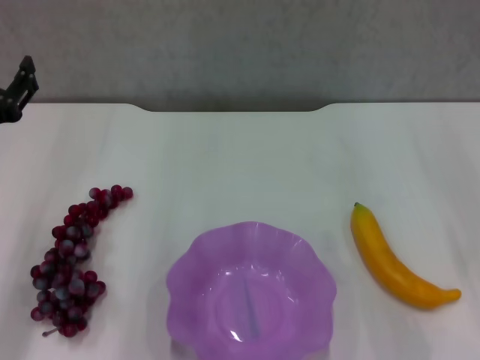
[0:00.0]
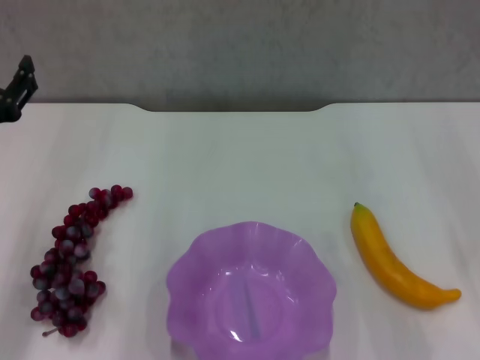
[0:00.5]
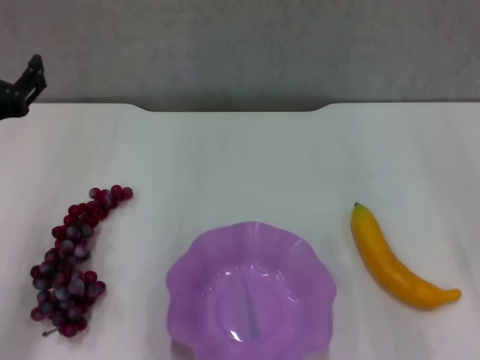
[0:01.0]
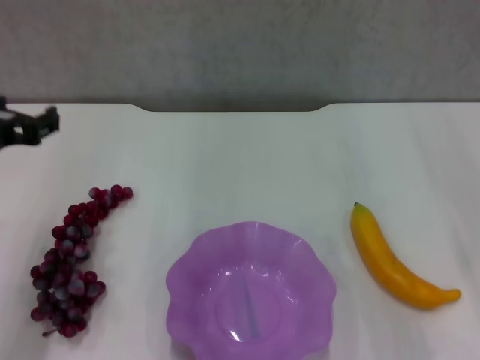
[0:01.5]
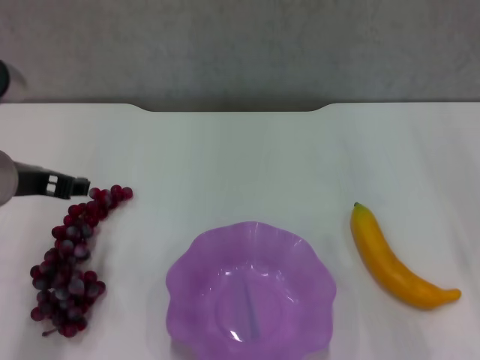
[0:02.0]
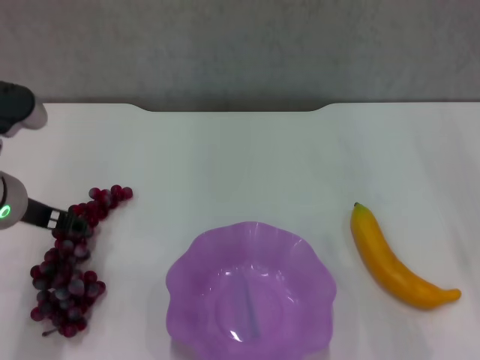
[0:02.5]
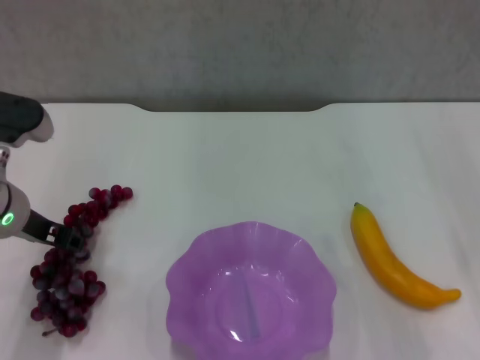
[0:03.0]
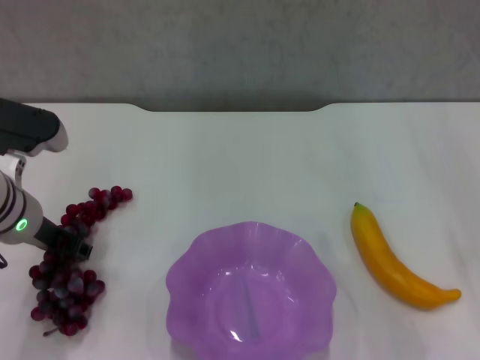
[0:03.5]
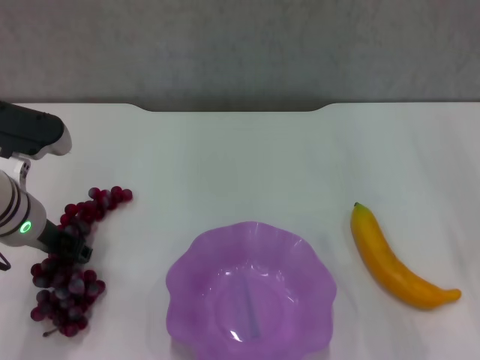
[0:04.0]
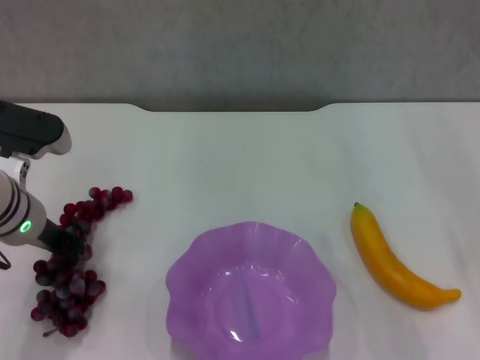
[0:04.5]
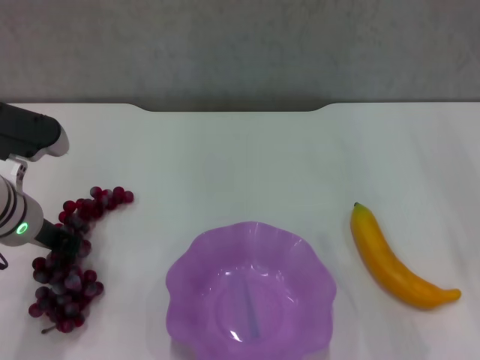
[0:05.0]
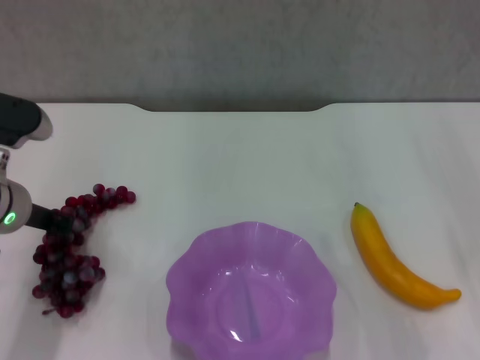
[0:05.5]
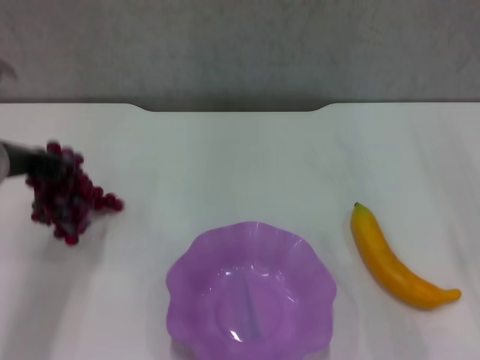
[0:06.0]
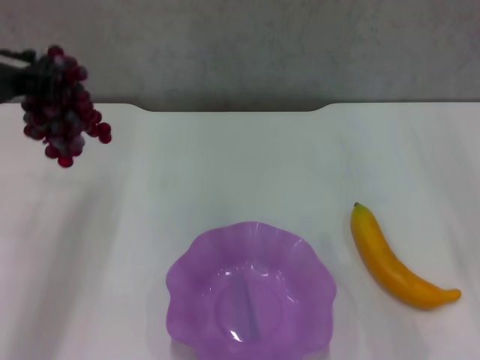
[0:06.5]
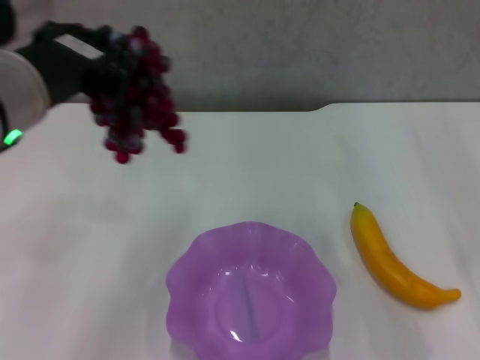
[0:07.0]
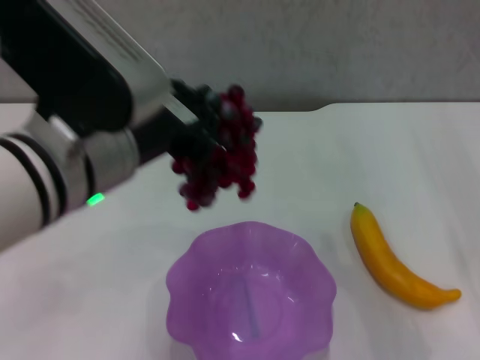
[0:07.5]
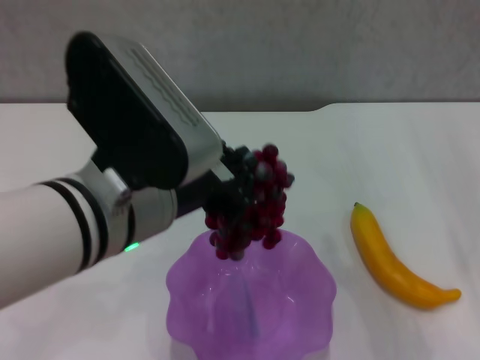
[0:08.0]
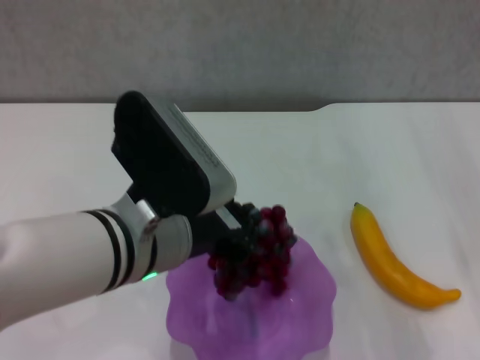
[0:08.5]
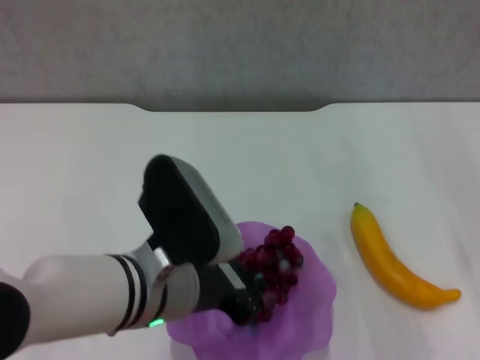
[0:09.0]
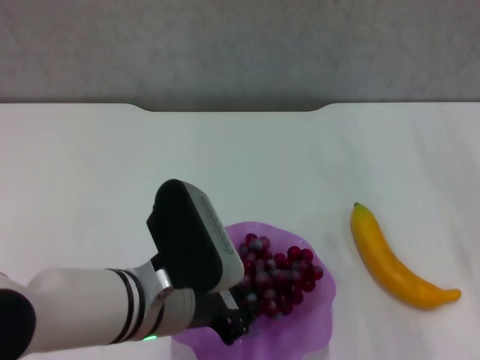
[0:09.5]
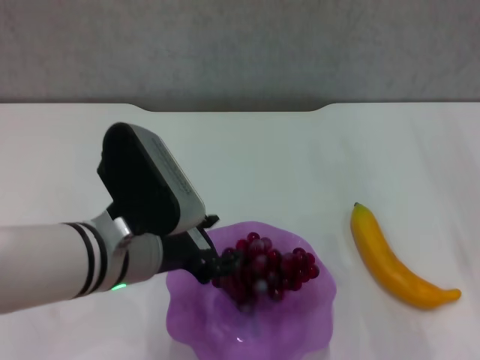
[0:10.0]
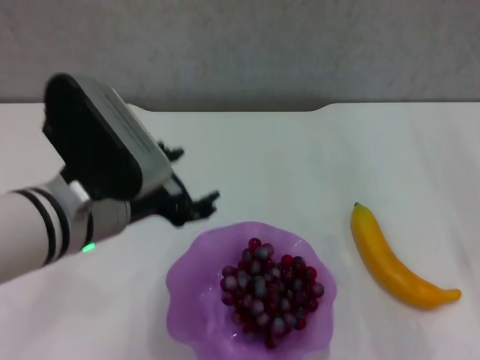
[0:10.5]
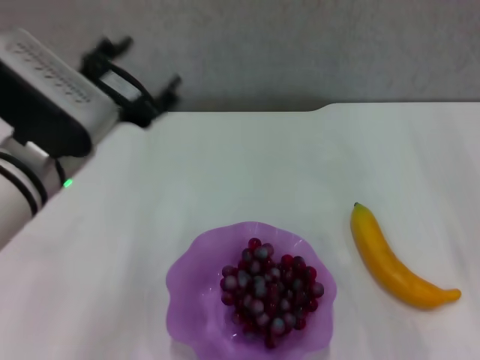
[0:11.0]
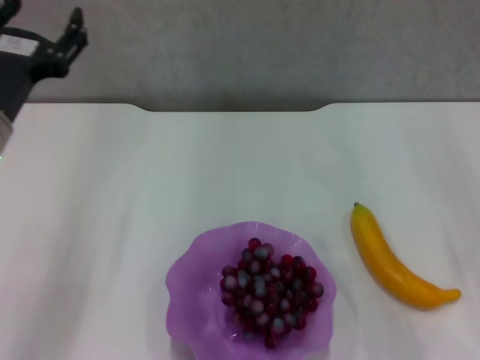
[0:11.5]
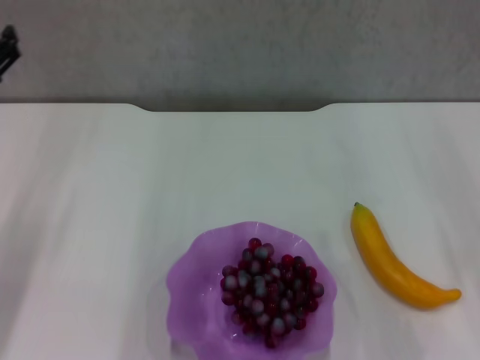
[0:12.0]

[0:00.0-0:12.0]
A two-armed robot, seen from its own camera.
Step, 0:01.0 to 0:05.0: Grasp the grape with left gripper.
Step, 0:05.5 to 0:10.0: Place the grape in the purple plate with left gripper.
0:00.0 to 0:02.0: The left gripper shifts about 5 cm to the right.
0:02.0 to 0:04.0: The left gripper shifts some 5 cm downward.
0:04.0 to 0:06.0: The left gripper goes approximately 5 cm upward, and closes up.
0:06.0 to 0:08.0: The left gripper goes approximately 15 cm to the right and backward.
0:08.0 to 0:10.0: The left gripper heads downward, covering about 10 cm, and opens.
0:10.0 to 0:12.0: The left gripper is displaced to the left by roughly 20 cm, and opens.

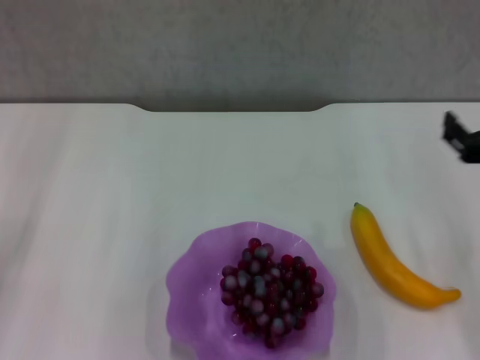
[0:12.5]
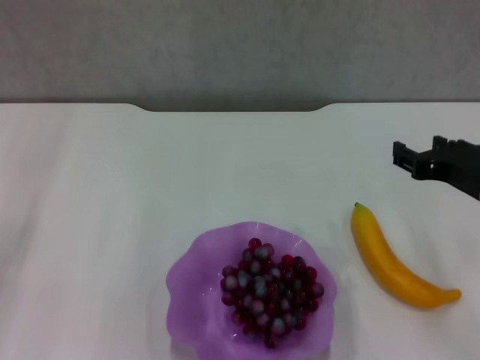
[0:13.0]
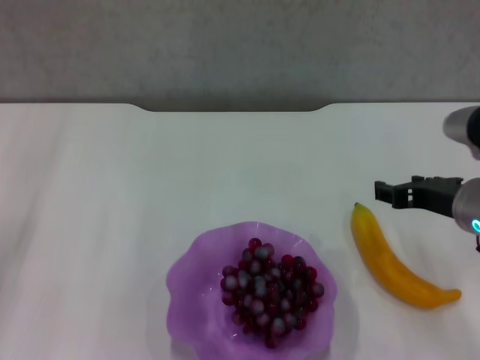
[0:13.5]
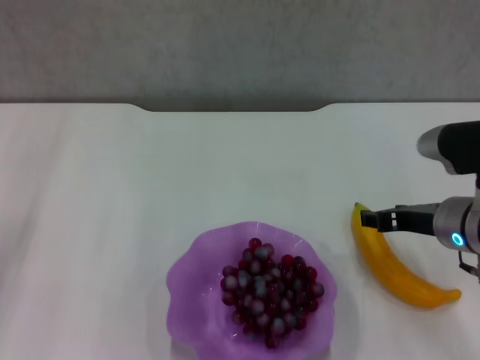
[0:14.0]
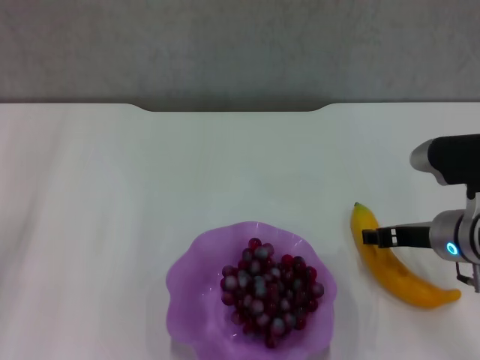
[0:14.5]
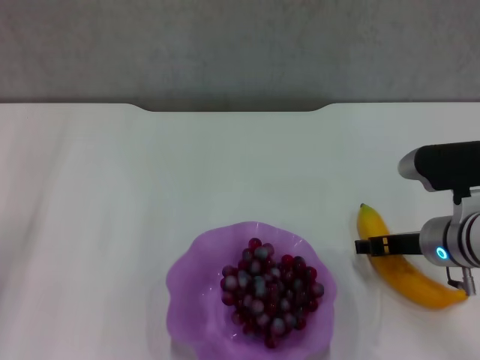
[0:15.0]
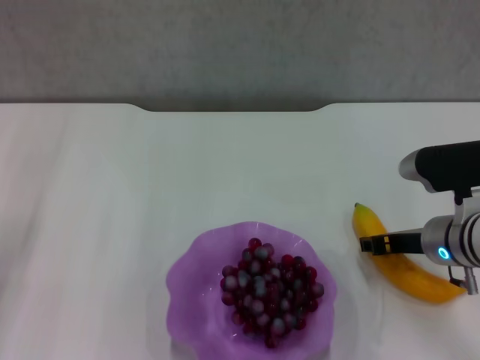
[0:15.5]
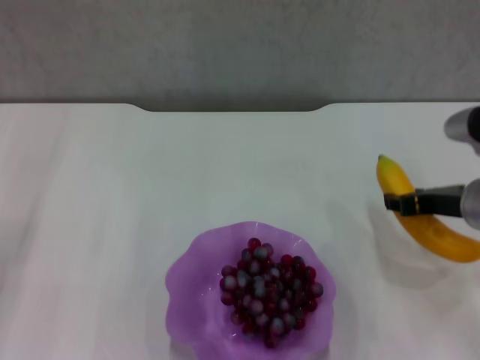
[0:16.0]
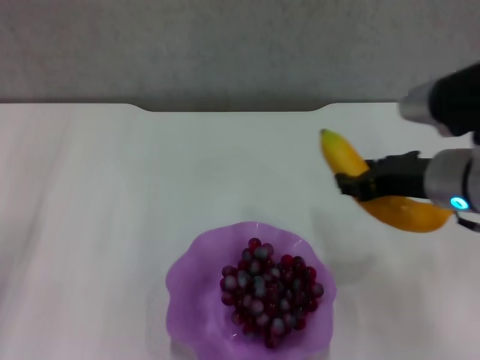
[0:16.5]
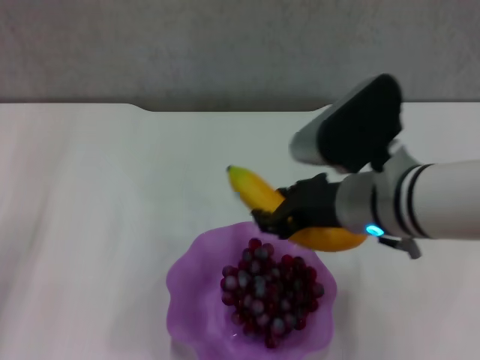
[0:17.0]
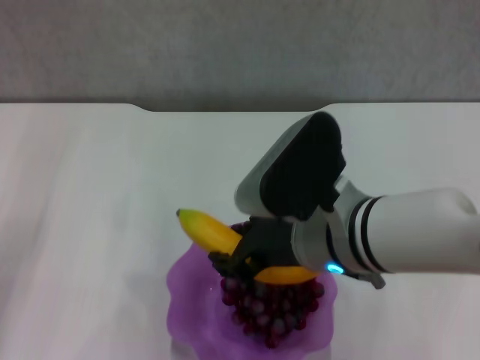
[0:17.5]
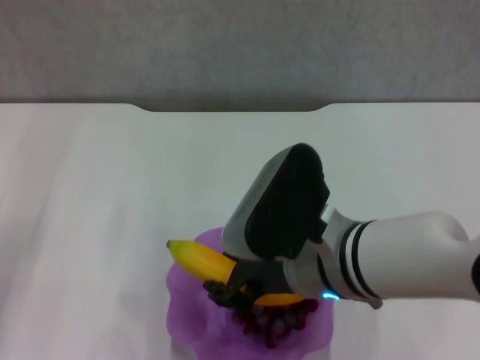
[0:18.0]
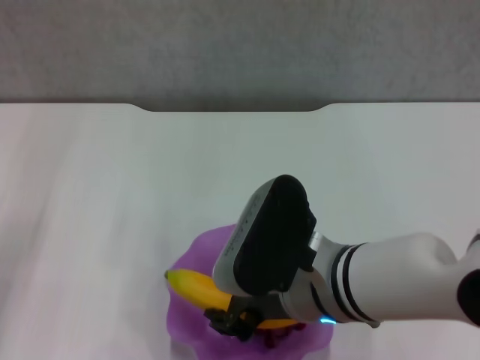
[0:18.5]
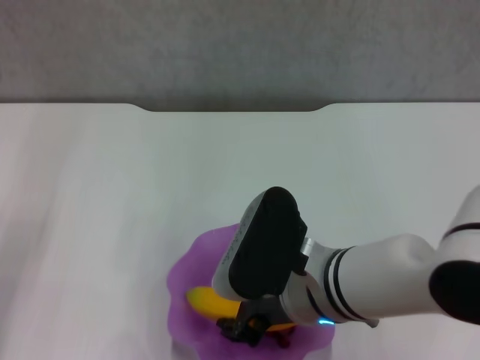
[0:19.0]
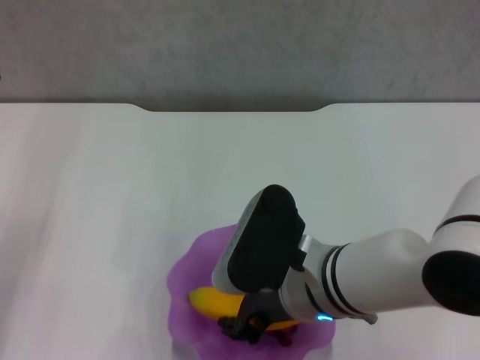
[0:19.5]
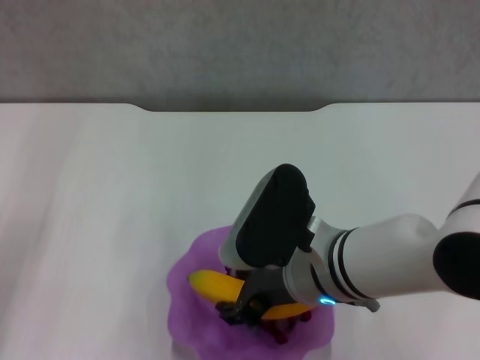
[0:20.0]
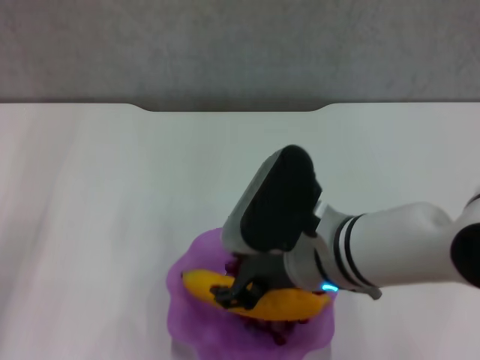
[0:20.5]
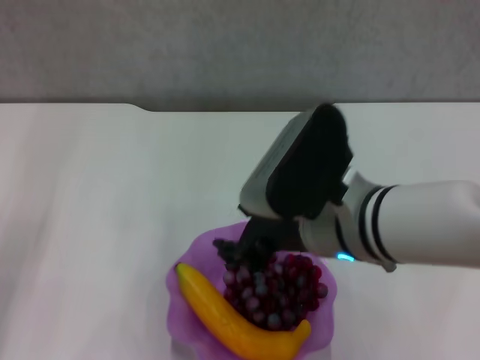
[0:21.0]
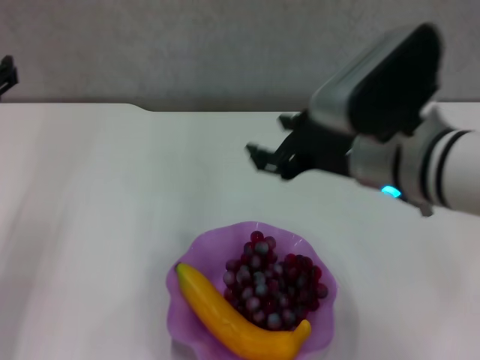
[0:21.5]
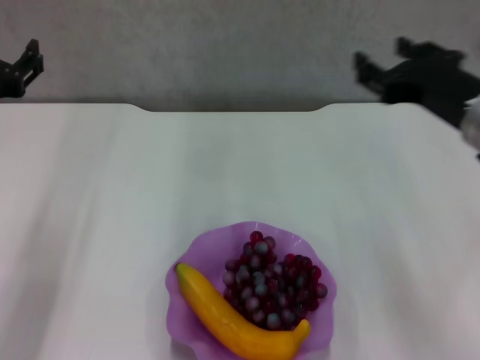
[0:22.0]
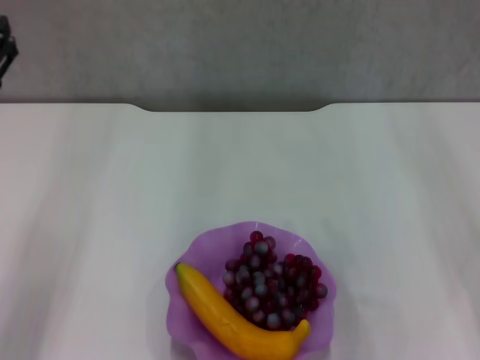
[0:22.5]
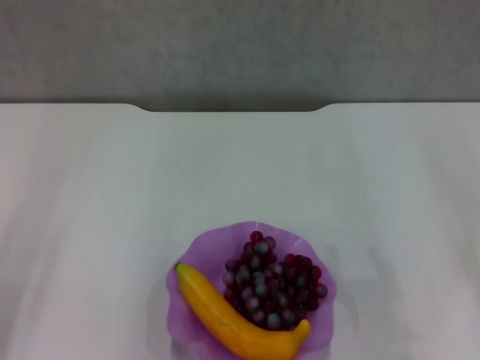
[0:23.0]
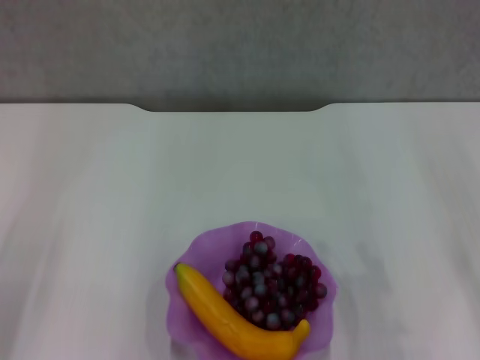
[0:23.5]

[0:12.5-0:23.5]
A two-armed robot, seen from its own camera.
Step, 0:12.5 to 0:15.0: Grasp the banana with right gripper.
Step, 0:15.5 to 0:21.0: Place the banana in the purple plate with right gripper.
0:12.5 to 0:14.5: The right gripper travels downward by roughly 5 cm.
0:14.5 to 0:16.0: The grippers make only small movements.
0:16.0 to 0:18.0: The right gripper shifts approximately 20 cm to the left.
0:18.0 to 0:20.0: The right gripper opens up.
0:20.0 to 0:21.5: The right gripper moves upward and to the right, roughly 10 cm, and opens its fingers.
0:21.5 to 0:23.5: The left gripper goes roughly 5 cm backward. Meanwhile the right gripper travels to the right and downward by about 20 cm.

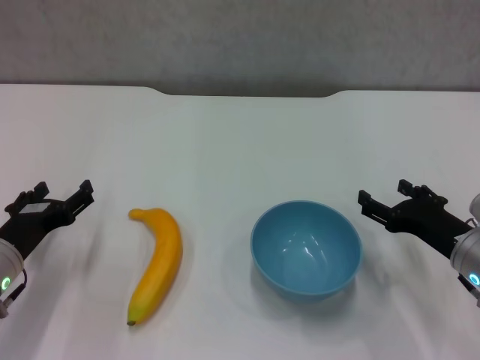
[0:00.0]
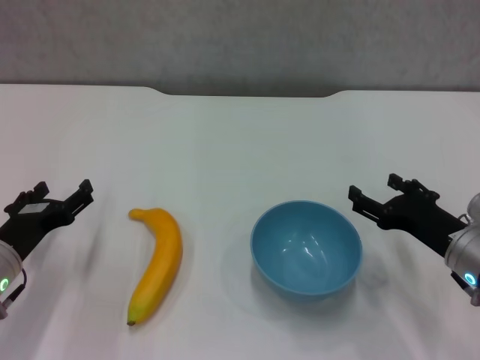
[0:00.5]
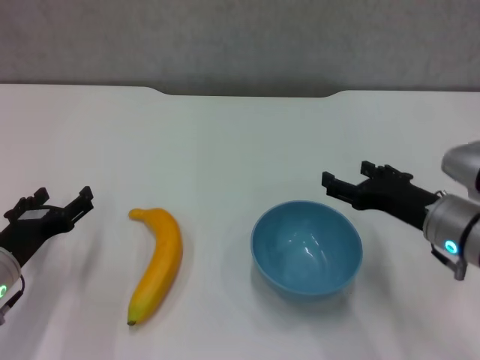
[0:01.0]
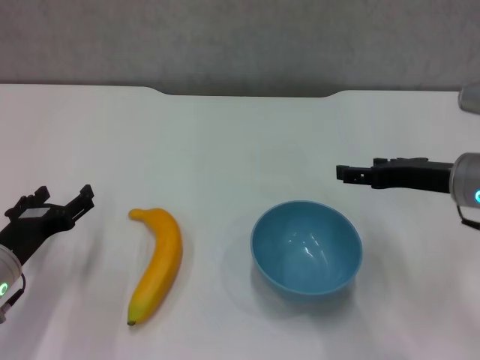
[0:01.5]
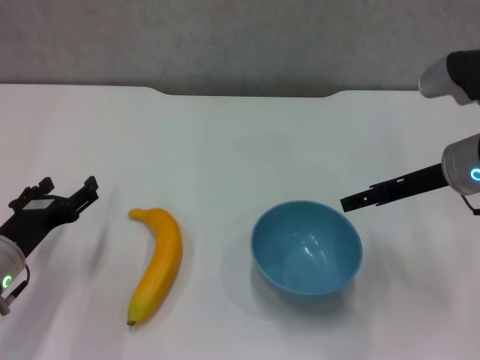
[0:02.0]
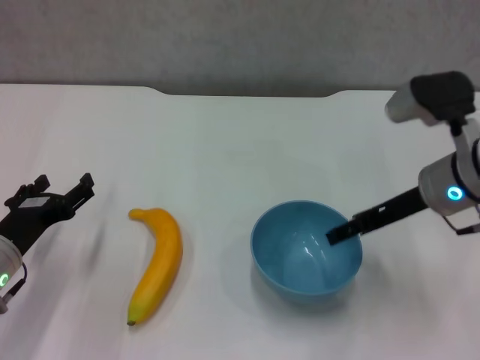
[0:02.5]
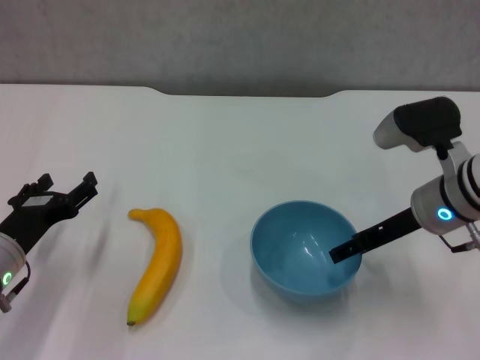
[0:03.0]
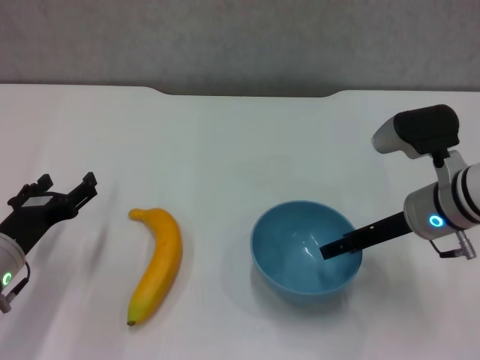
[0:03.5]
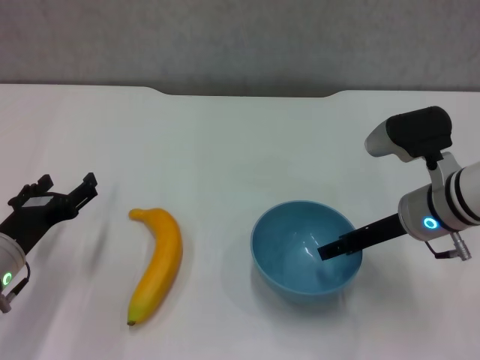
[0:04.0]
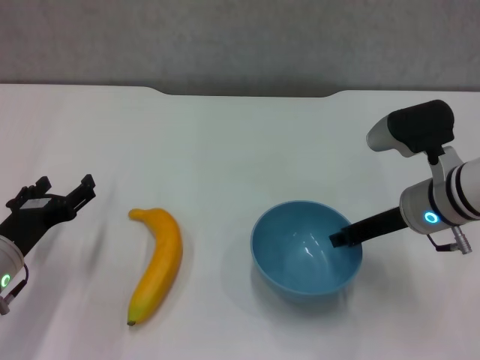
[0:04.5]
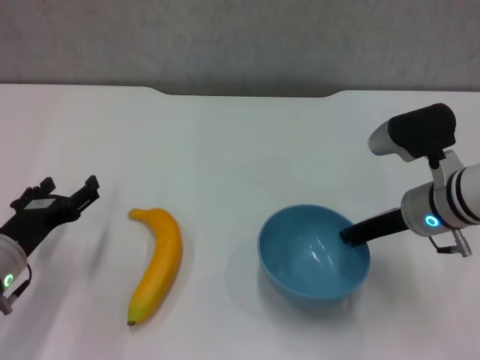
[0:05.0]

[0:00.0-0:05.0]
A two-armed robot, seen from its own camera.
Step, 0:00.0 to 0:05.0: Grasp the blue bowl with right gripper.
0:00.0 to 0:02.5: The right gripper moves upward, forward and to the left, about 15 cm.
0:02.5 to 0:05.0: The right gripper closes.
